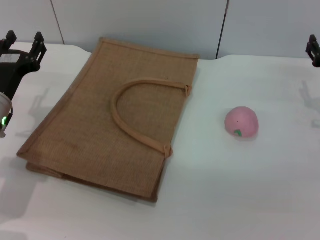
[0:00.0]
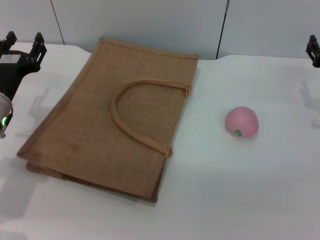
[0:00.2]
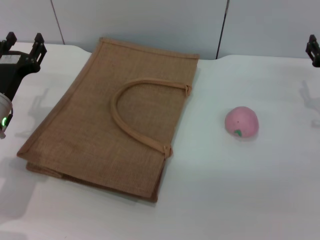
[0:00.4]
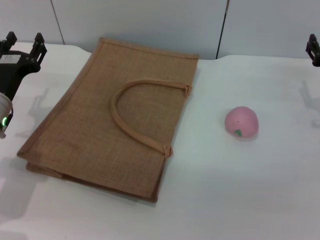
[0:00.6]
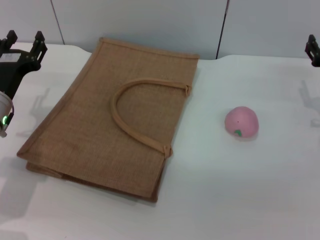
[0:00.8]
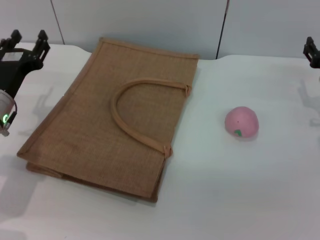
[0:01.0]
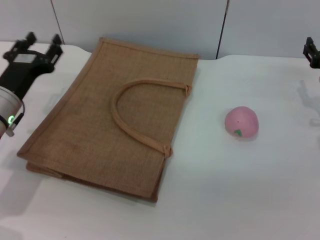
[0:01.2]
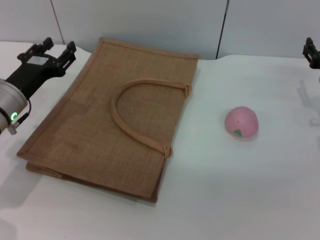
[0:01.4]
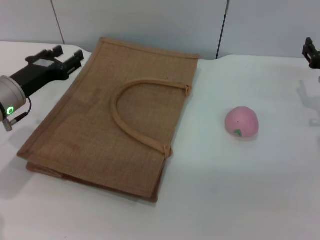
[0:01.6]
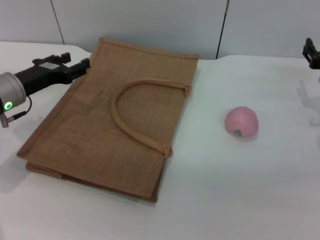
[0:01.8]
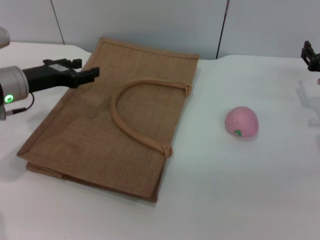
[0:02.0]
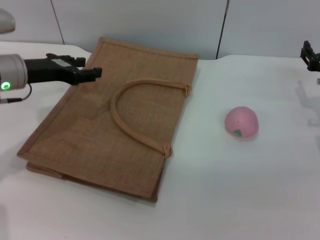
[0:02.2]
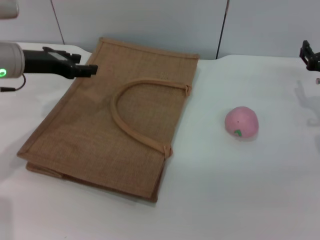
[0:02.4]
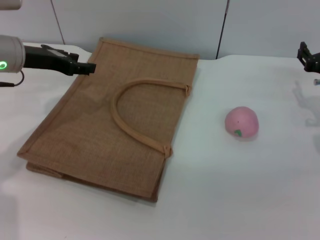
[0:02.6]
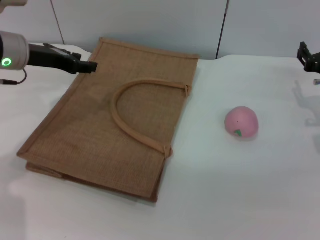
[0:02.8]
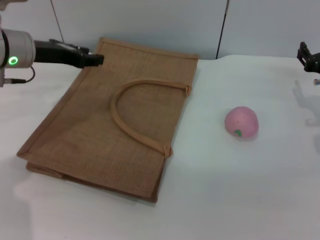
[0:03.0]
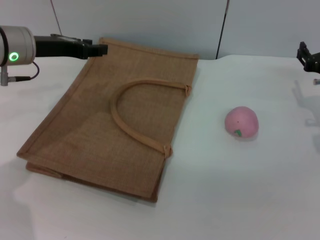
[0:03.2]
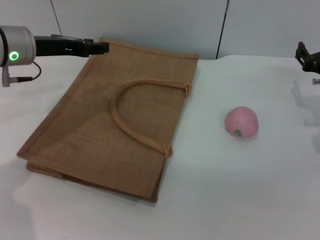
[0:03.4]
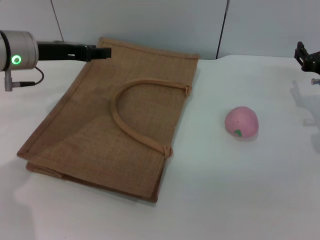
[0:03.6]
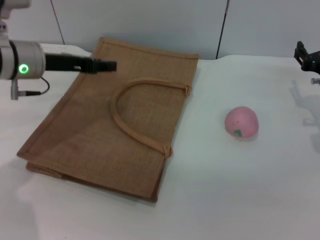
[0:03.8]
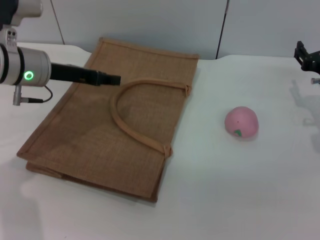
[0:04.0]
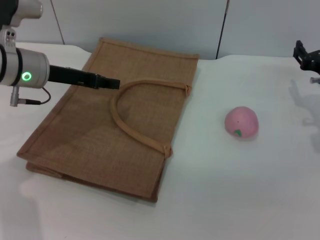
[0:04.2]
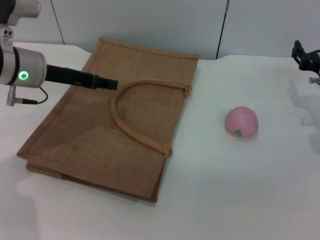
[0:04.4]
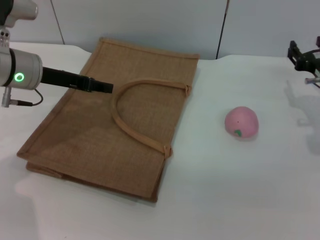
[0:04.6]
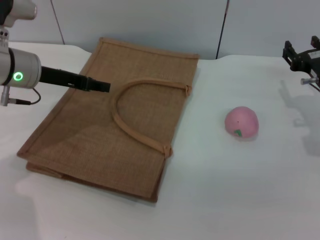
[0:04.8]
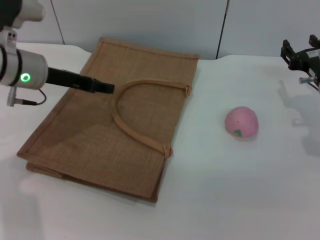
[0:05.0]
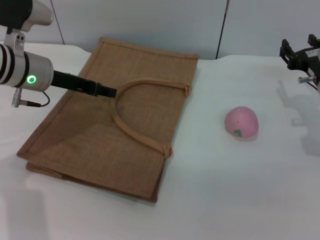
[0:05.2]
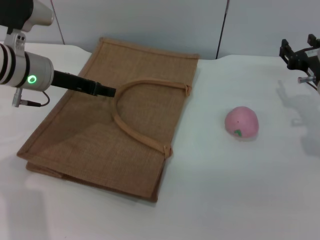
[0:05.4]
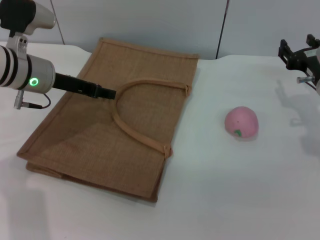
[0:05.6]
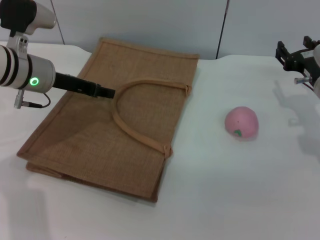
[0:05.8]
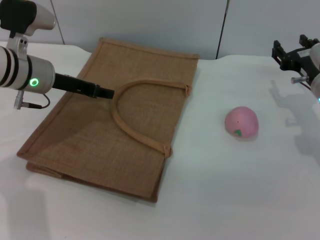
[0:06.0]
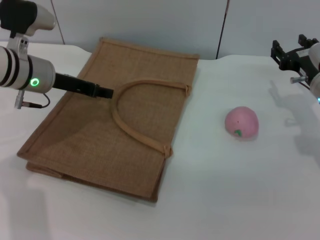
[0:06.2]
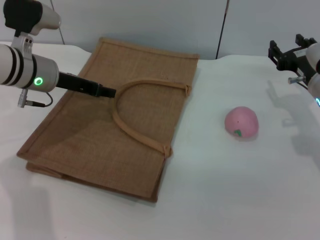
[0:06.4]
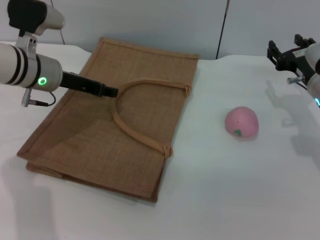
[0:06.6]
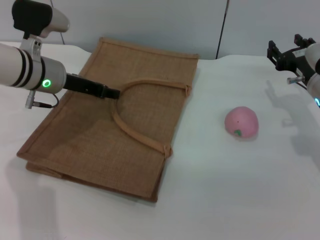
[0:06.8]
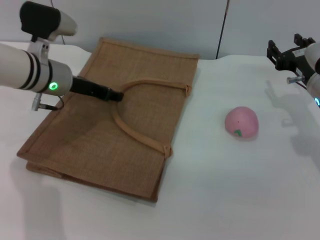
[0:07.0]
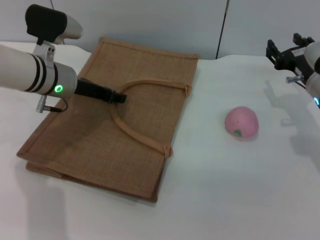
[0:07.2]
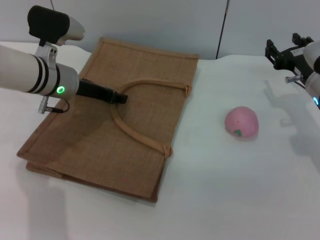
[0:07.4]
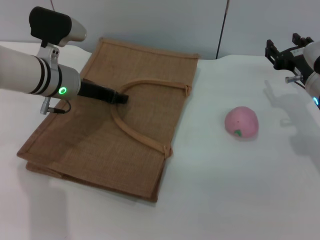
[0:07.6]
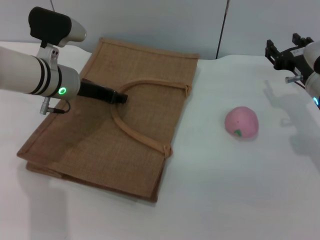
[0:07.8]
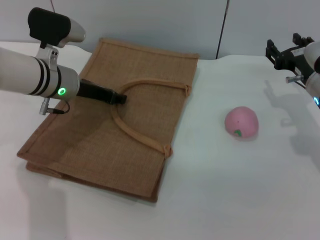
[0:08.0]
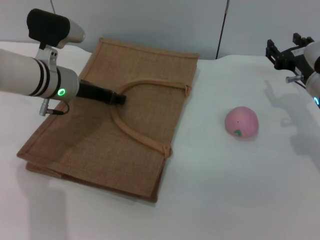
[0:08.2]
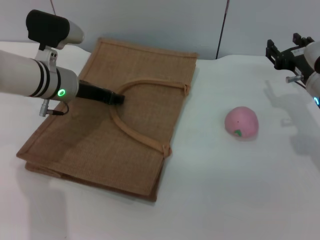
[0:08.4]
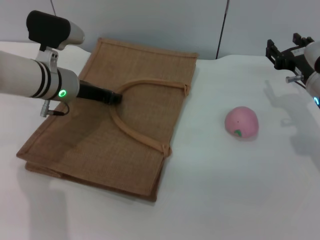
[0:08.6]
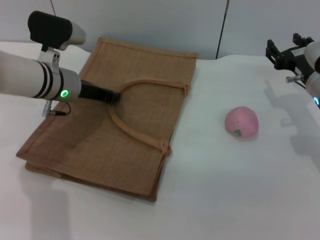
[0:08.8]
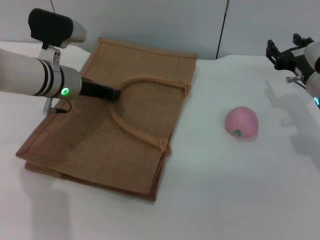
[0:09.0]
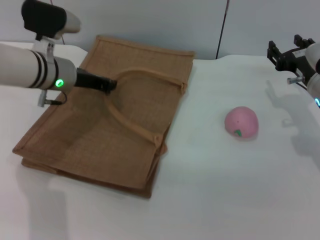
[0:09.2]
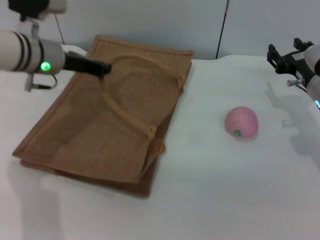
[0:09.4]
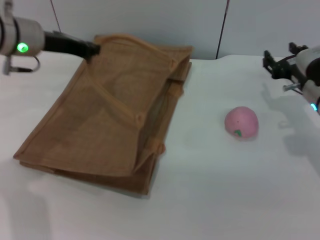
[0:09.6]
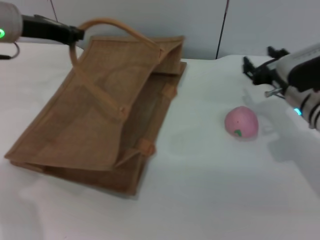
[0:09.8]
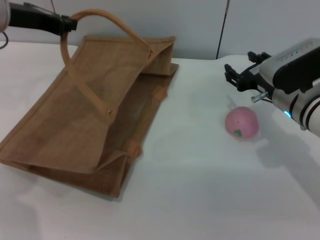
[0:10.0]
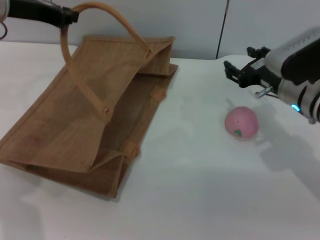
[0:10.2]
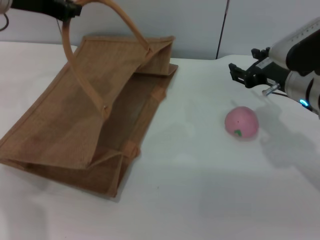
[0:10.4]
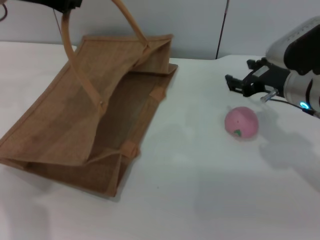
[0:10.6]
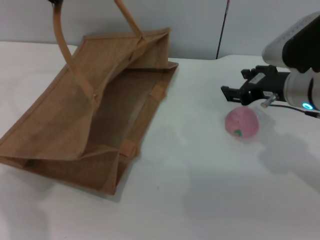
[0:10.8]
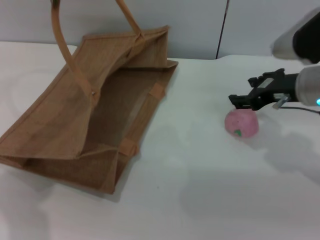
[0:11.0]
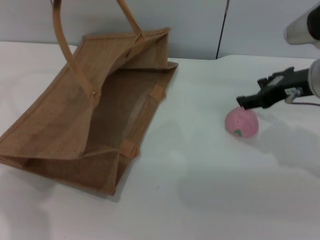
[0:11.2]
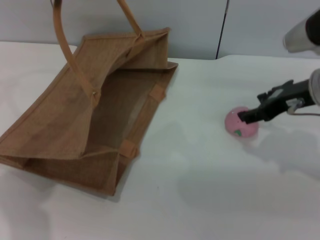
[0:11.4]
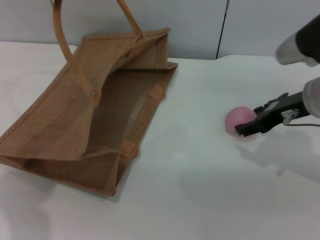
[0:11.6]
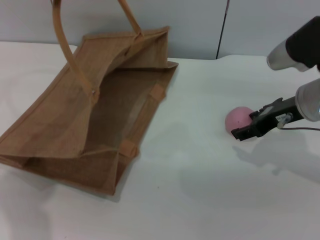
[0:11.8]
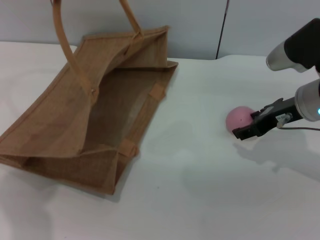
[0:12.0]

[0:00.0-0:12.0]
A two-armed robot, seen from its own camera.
Task of the whole recording: pick up the peach from the table and place it in the brown handbag.
Step, 0:00.0 to 0:09.4: Lift the woven bag with the left gripper to open it.
0:01.6 to 0:03.0: The left gripper heads upward, covering about 10 cm.
0:03.0 to 0:06.0: The grippers move only a little.
0:06.0 to 0:07.6: The grippers make only small movements.
0:07.6 to 0:09.0: The left gripper closes its fingers.
0:09.0 to 0:10.4: The right gripper changes place by roughly 5 cm, while the left gripper shifts about 15 cm upward.

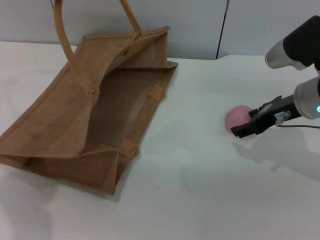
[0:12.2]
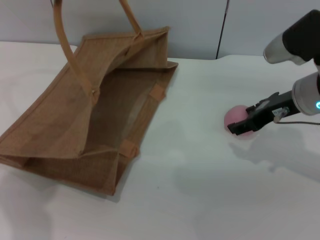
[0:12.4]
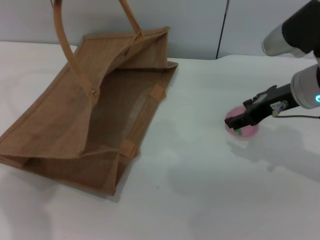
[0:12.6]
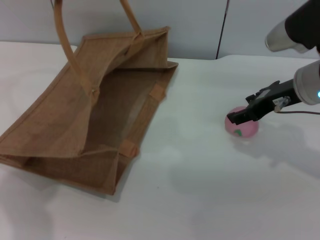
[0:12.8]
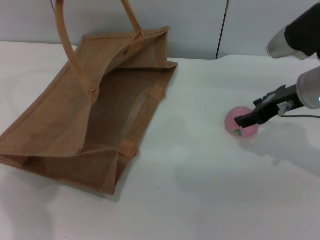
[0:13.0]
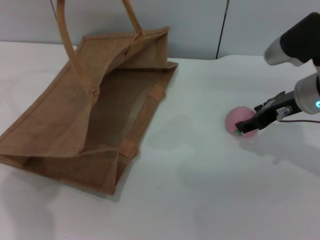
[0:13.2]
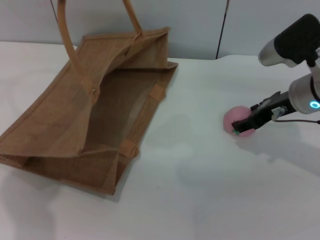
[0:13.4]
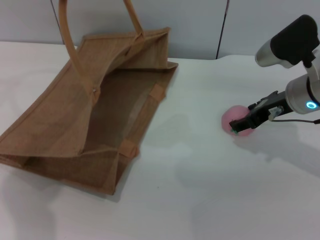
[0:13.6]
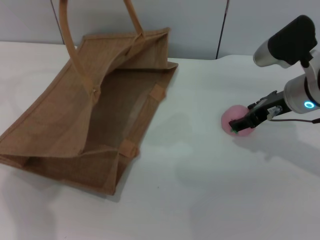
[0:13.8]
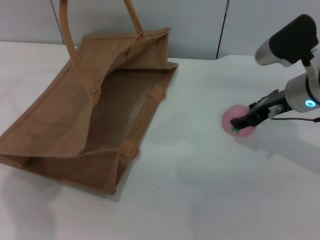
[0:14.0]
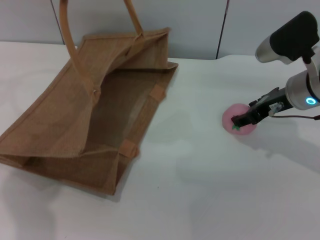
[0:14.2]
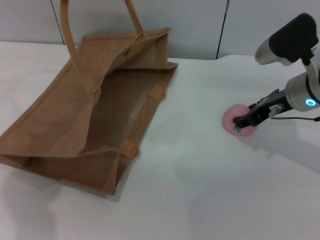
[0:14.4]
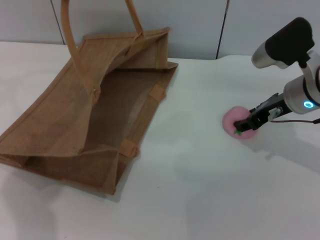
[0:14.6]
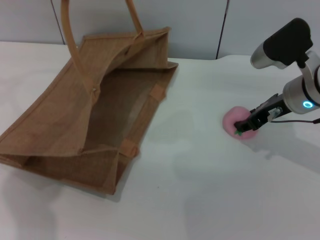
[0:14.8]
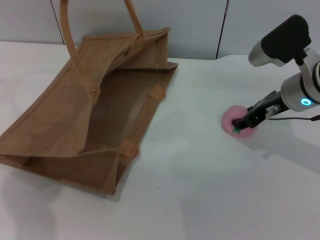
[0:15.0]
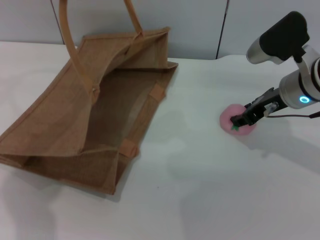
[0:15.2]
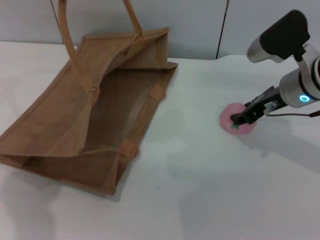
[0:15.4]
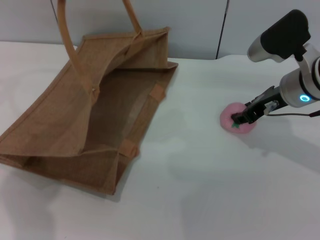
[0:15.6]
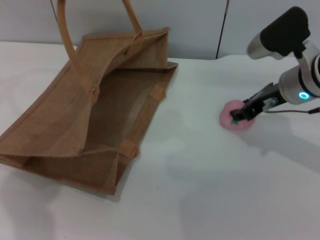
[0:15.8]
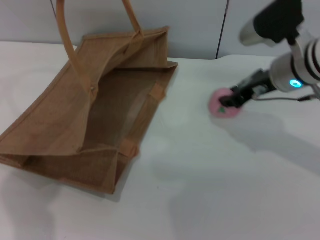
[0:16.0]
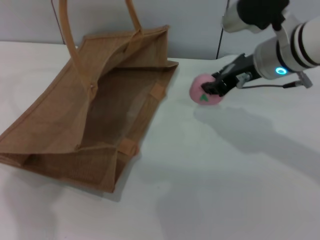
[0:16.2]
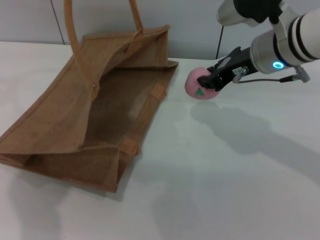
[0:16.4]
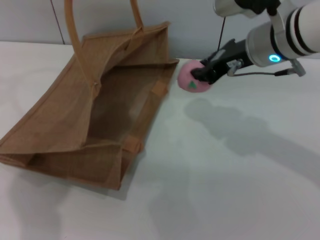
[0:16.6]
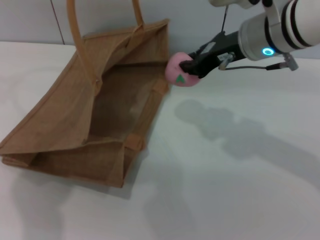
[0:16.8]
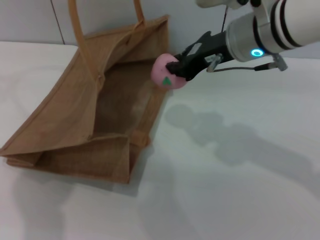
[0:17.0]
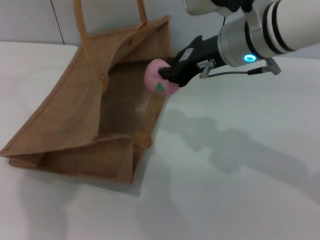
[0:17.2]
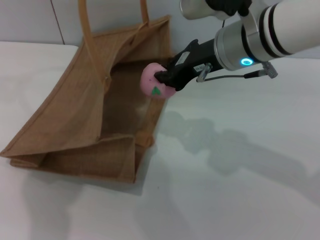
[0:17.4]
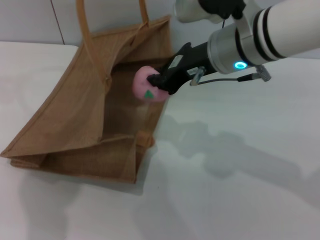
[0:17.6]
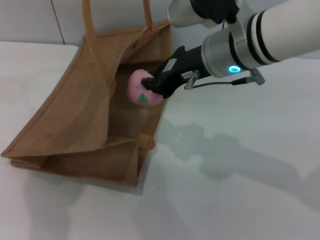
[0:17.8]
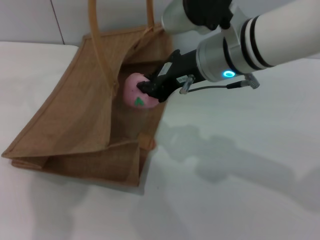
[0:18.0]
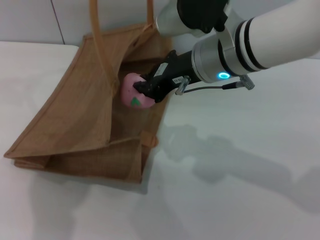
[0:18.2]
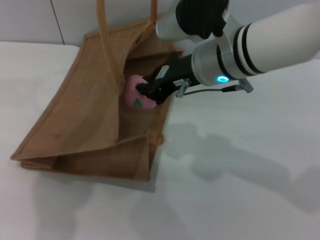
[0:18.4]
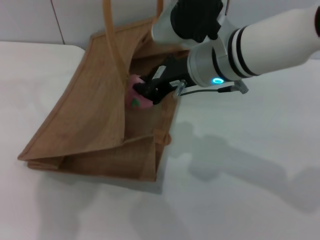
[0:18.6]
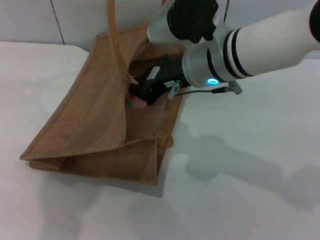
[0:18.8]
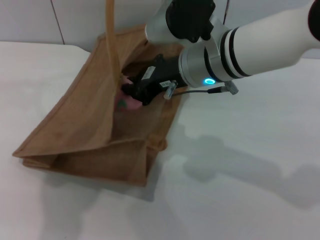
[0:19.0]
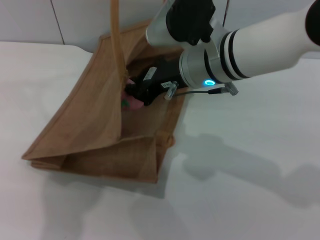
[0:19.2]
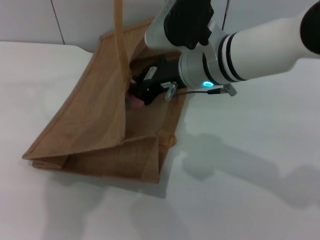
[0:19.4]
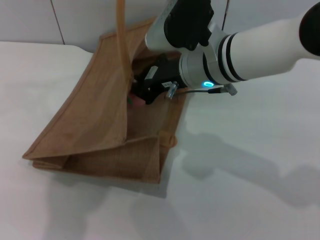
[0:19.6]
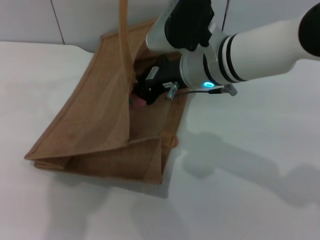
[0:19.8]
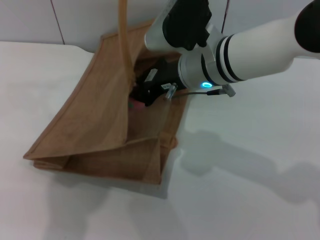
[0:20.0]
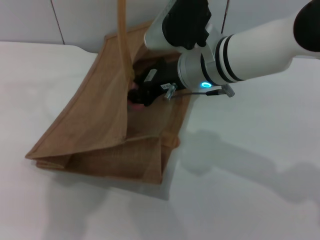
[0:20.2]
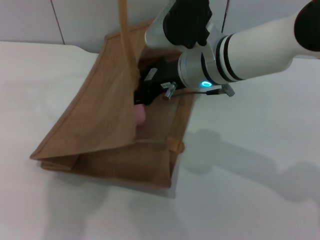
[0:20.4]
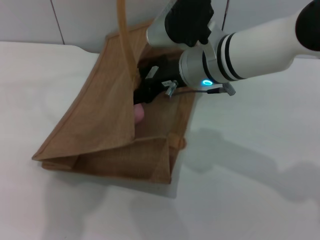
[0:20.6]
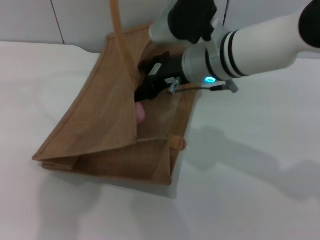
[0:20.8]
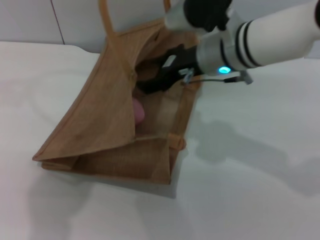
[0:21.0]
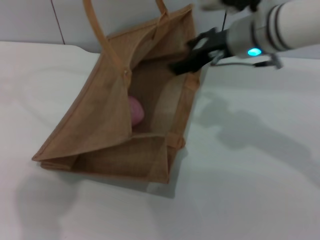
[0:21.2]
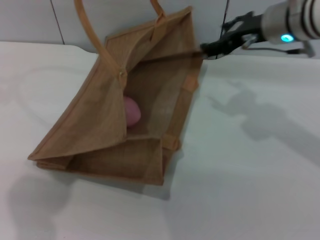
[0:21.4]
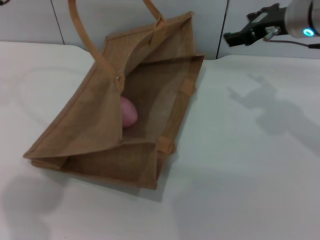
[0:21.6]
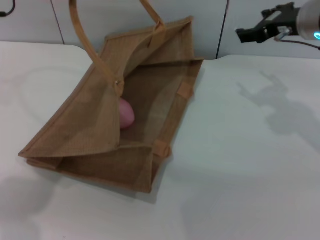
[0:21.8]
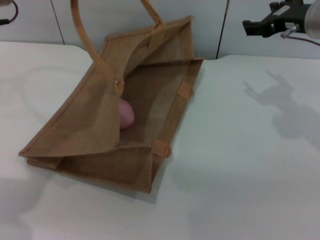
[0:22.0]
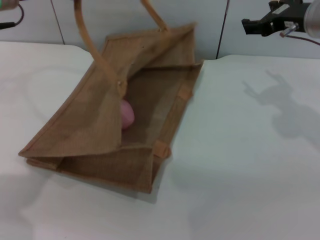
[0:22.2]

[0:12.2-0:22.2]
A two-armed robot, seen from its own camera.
Task of the whole recording: pick up the peach from the table and place it in the brown handbag.
Step, 0:12.2 to 0:16.2: Pick up the peach with the right gripper.
Step, 0:16.4 to 0:21.4: Place the peach into the woven bag with the right gripper.
0:12.2 to 0:13.6: The grippers move only a little.
0:13.6 to 0:15.0: Both grippers stay about where they are.
0:15.0 to 0:16.4: The right gripper moves upward and to the left, roughly 10 cm.
0:16.4 to 0:18.0: The right gripper is displaced to the left by roughly 5 cm.
0:19.4 to 0:20.8: The right gripper opens up.
0:20.8 to 0:22.2: The left gripper goes some 10 cm downward and to the left, while the right gripper heads to the right, covering roughly 15 cm.
